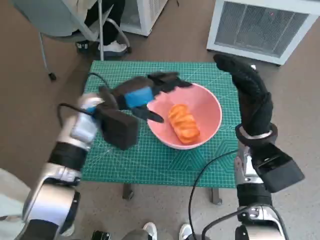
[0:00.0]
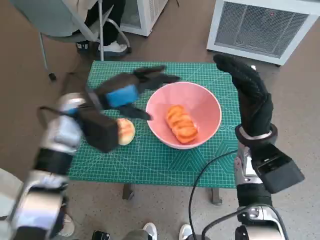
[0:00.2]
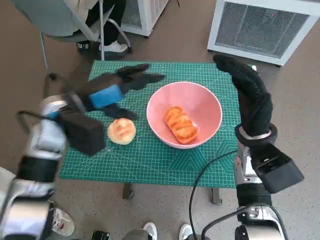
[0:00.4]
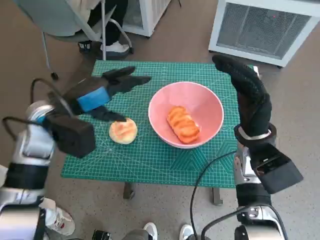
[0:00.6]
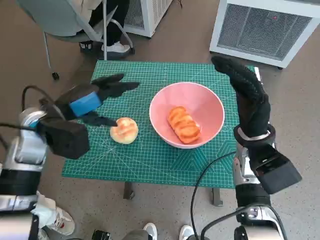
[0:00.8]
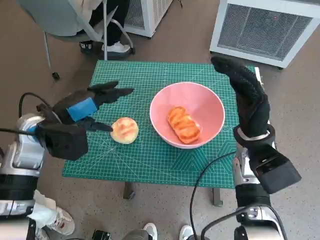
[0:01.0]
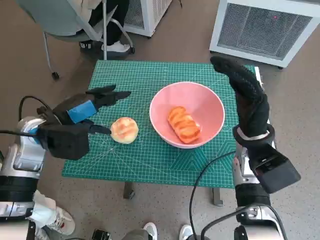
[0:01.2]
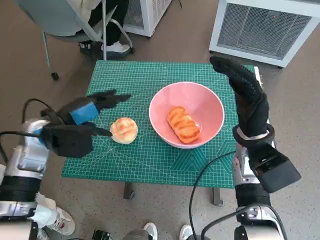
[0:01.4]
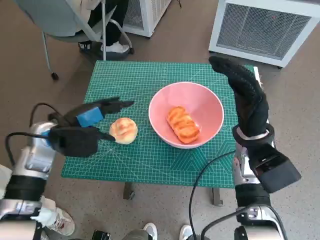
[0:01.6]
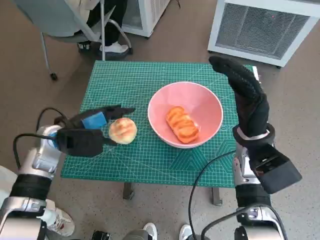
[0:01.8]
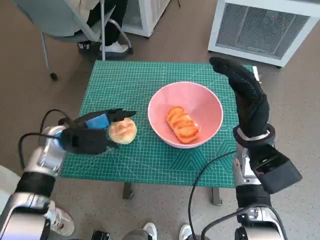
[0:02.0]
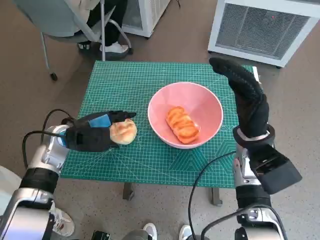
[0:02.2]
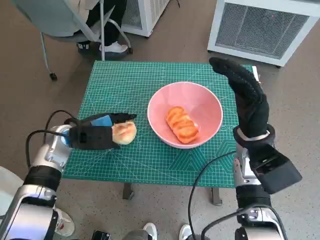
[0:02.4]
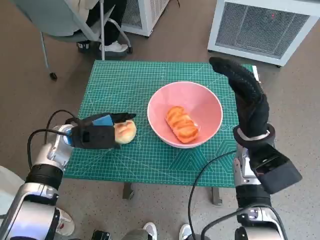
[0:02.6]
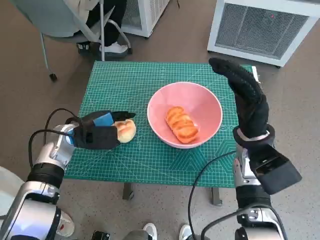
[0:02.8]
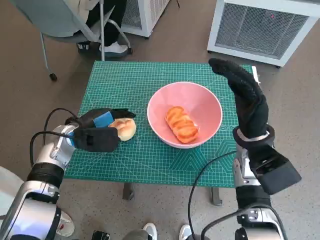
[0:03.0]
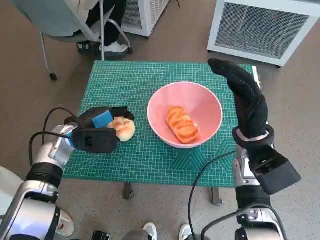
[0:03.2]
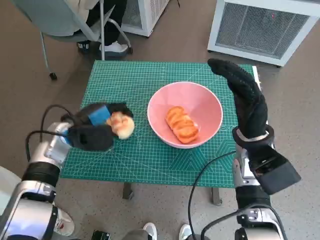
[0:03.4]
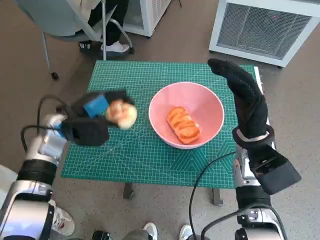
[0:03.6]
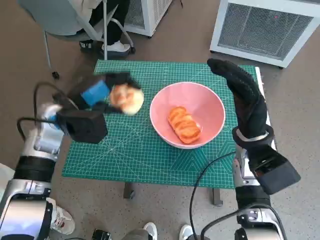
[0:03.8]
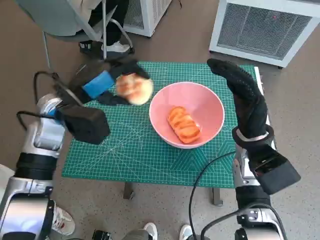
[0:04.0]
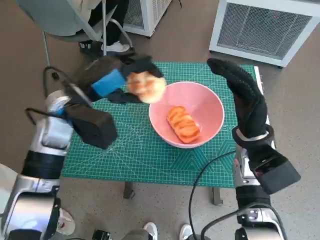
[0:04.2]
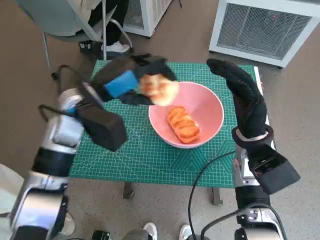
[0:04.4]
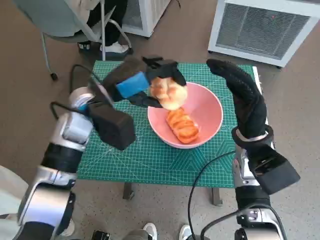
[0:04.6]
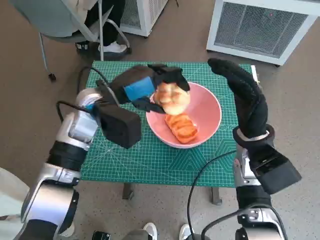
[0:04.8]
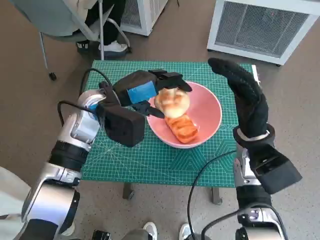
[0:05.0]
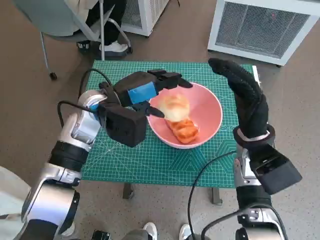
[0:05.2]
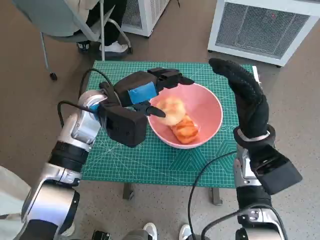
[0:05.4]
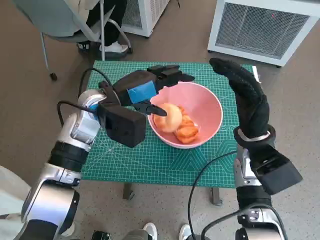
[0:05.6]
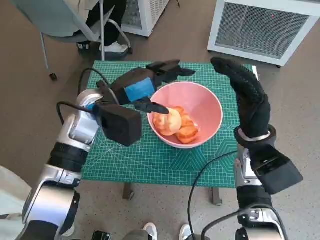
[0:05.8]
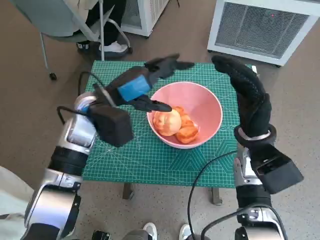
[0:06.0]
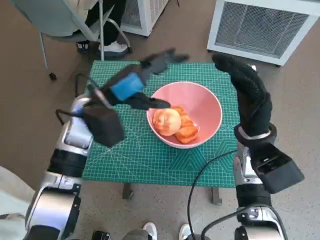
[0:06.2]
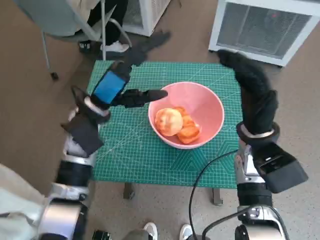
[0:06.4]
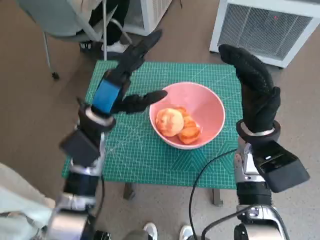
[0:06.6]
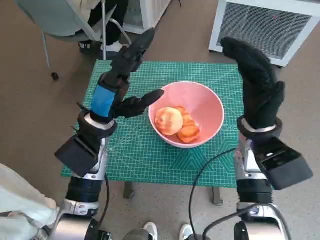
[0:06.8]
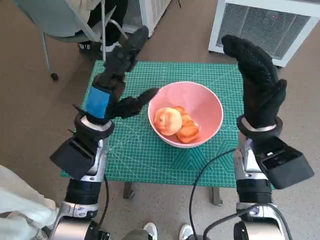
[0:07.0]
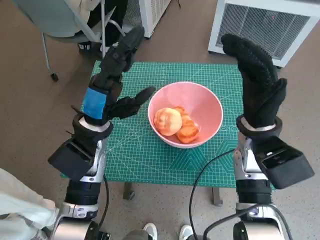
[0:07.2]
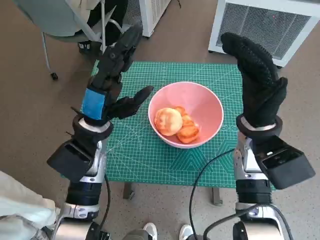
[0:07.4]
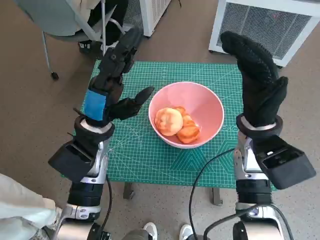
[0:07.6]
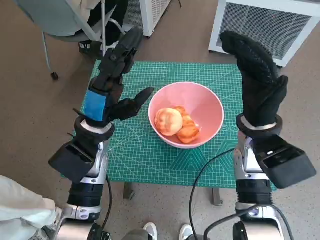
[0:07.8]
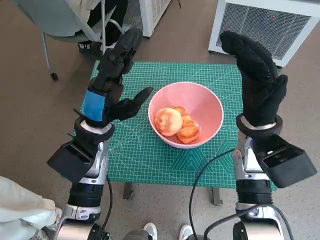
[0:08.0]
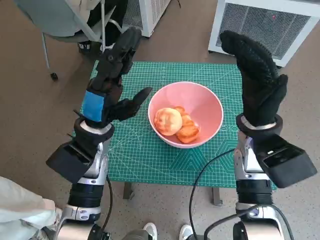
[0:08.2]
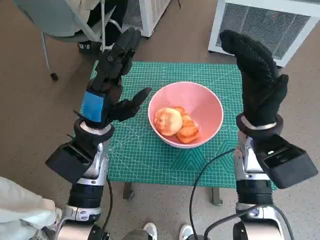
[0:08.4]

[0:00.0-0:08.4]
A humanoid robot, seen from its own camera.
Task of the whole recording: Push the bowl to the center of the table and put the bread into the bowl.
Step, 0:00.2 to 0:03.0: Grasp the round bread with left hand.
Step, 0:03.2 to 0:07.6: Place the round bread in pink bowl with left hand.
0:00.0 to 0:01.4: The left hand goes about 10 cm to the left.
0:01.4 to 0:02.8: The left hand shifts some 5 cm downward.
0:02.8 to 0:04.2: The left hand moves upward, some 10 cm.
0:04.2 to 0:05.6: The left hand ends up roughly 5 cm from where it was.
0:05.6 to 0:07.0: The left hand shifts by some 5 cm.
0:07.0 to 0:08.4: The hands make only small movements.

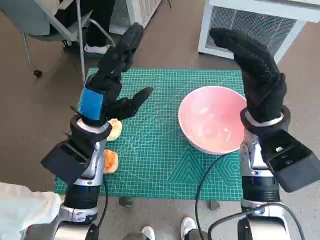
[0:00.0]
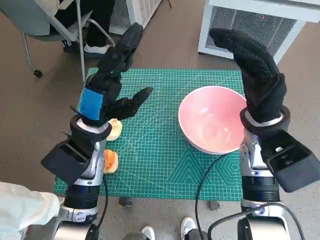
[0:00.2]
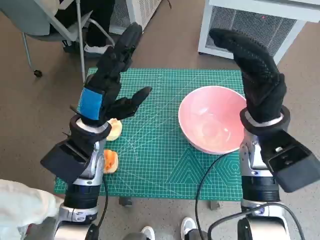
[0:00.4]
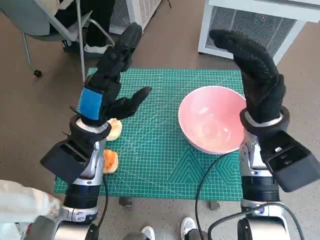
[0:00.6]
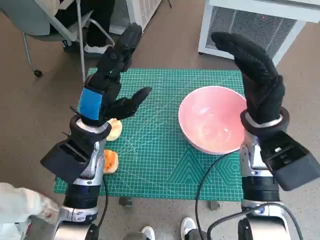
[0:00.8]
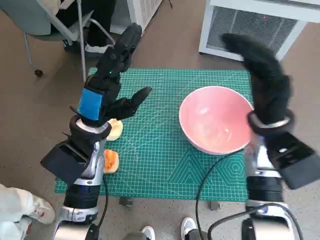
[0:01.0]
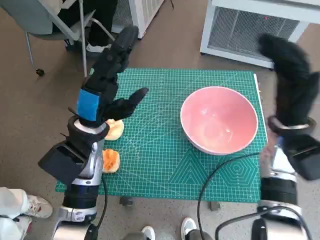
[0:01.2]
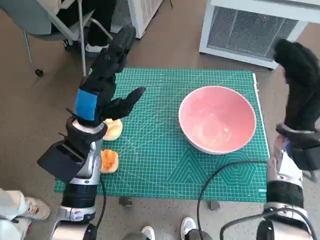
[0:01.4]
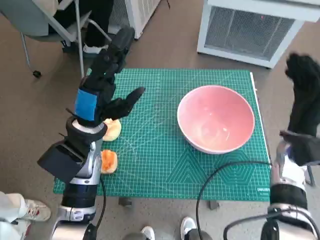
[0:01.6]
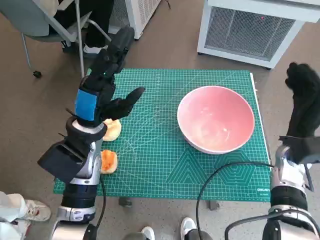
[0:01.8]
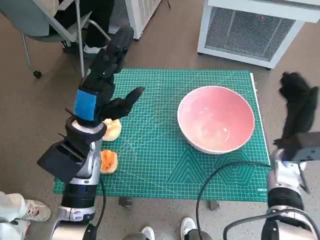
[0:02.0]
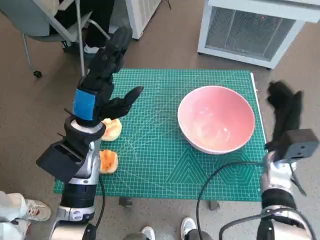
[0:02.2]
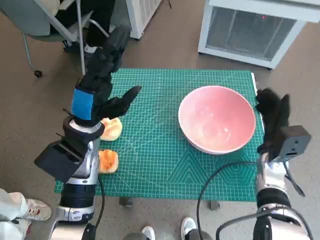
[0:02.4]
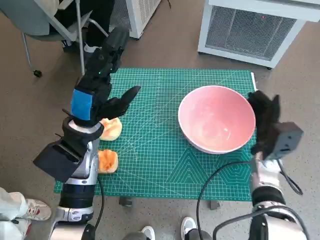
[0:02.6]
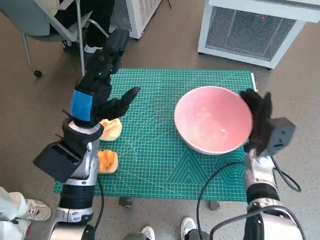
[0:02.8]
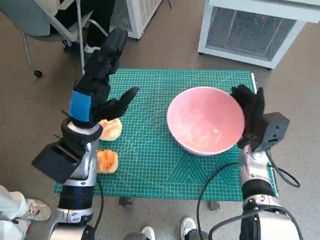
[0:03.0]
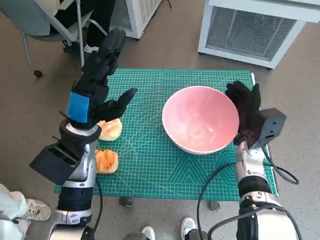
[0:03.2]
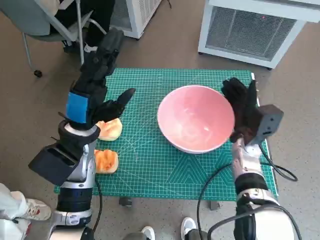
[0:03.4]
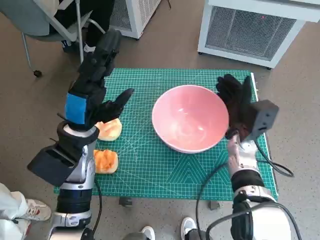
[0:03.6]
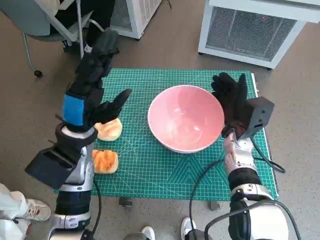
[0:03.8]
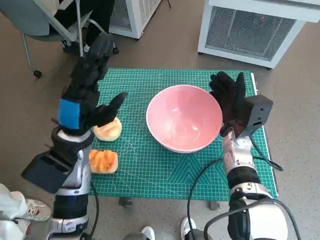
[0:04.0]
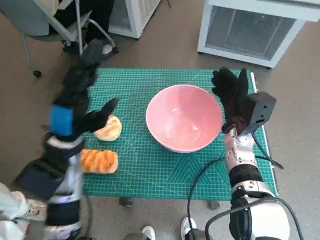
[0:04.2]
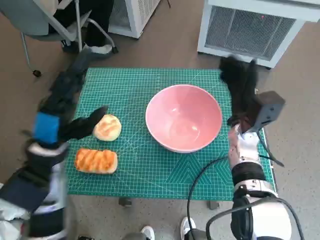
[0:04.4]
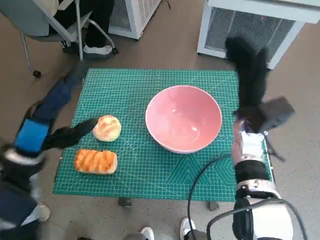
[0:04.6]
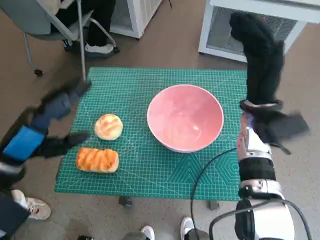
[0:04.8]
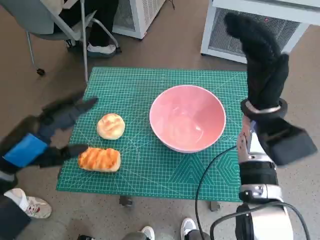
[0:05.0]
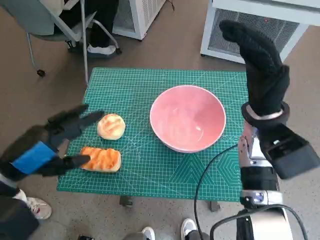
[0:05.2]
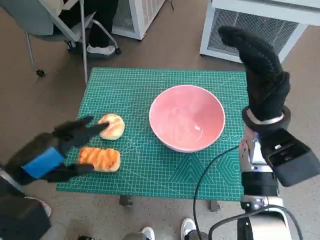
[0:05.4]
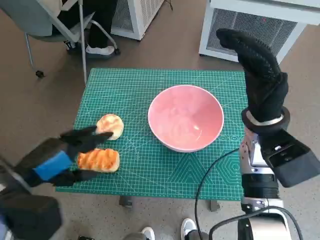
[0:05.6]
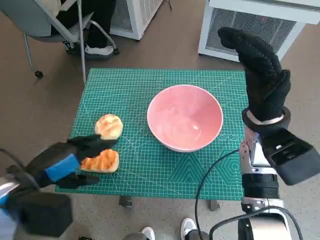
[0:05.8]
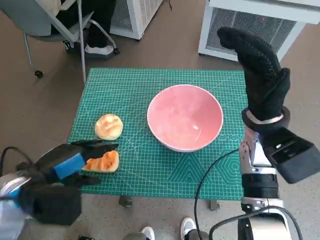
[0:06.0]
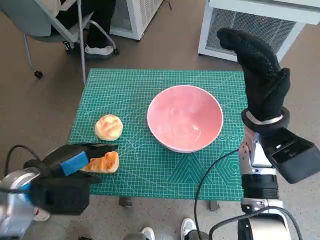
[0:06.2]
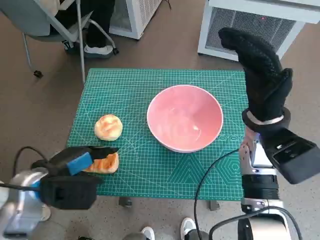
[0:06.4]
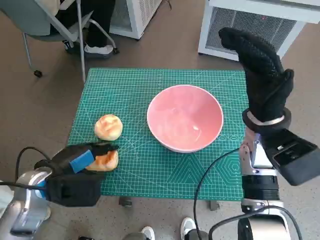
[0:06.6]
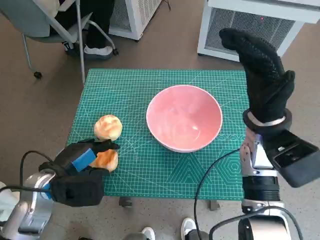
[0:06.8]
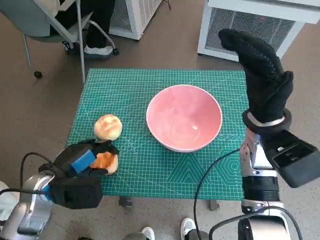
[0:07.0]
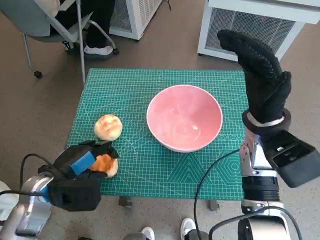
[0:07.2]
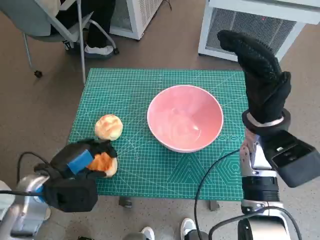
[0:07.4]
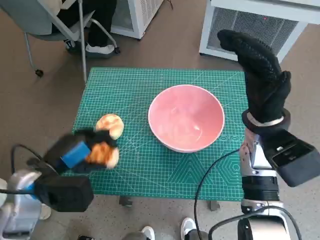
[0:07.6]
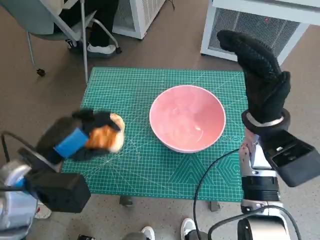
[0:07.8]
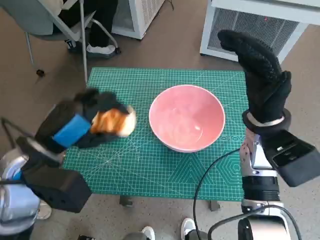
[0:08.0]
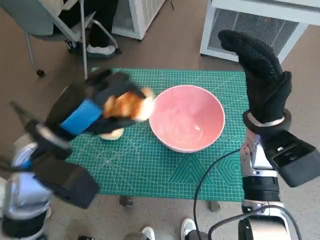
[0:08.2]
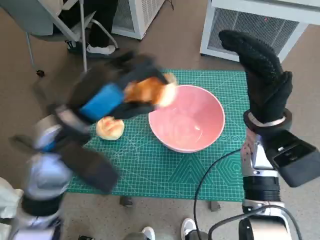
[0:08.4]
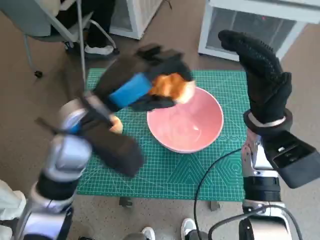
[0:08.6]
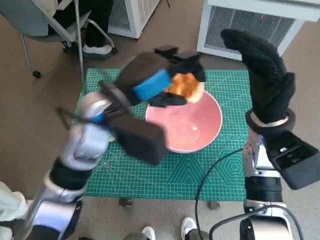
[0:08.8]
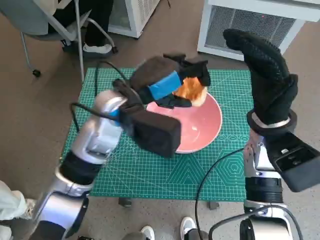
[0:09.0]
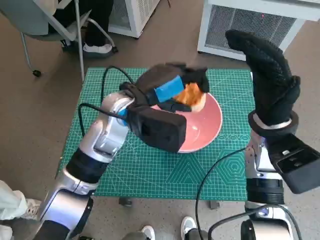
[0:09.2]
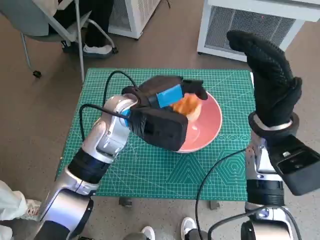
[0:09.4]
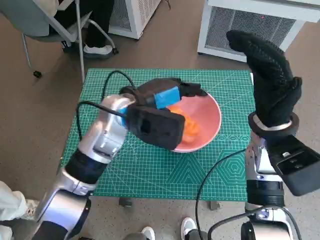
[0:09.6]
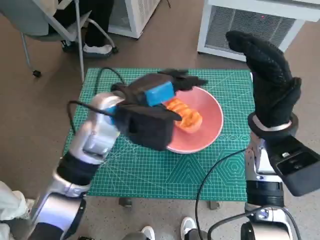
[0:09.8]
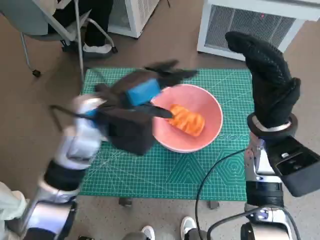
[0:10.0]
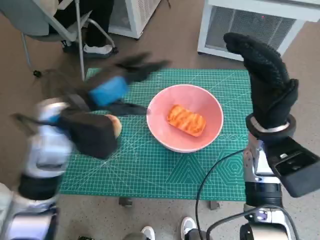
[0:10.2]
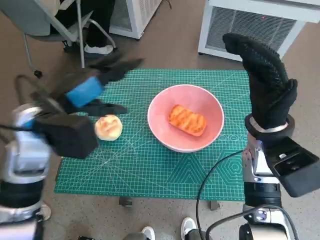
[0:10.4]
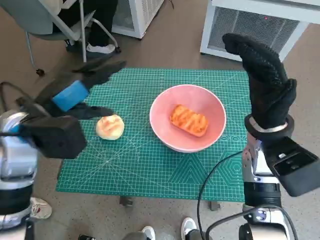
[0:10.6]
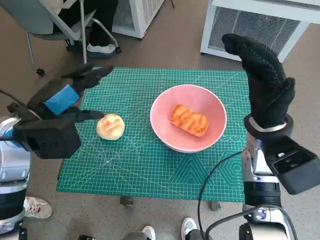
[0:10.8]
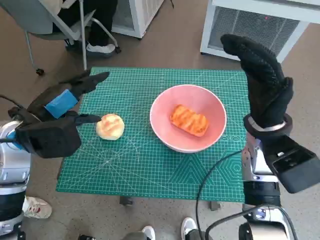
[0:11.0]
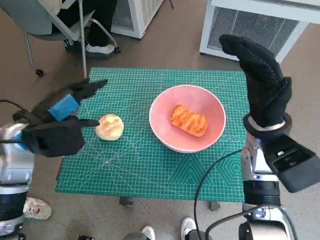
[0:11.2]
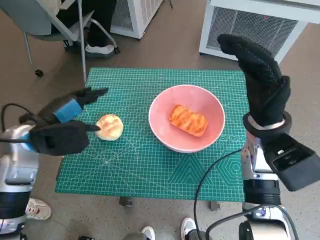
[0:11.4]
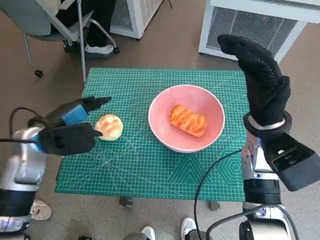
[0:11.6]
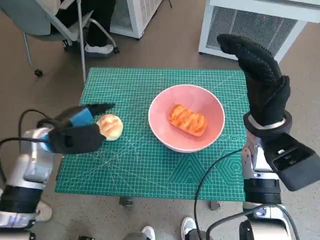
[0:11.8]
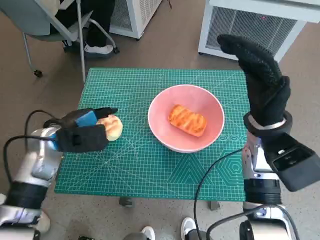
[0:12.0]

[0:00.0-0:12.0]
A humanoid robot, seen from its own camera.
Task of the whole recording: Push the bowl to the center of the table and put the bread into the bowl.
Step, 0:00.0 to 0:04.2: Move the pink bowl to the center of table with right hand.
Step, 0:04.4 to 0:07.2: Grasp the long bread with left hand.
Step, 0:07.4 to 0:09.6: Place the long bread in pink bowl with left hand.
0:01.6 to 0:03.0: The right hand heads downward, covering approximately 5 cm.
0:03.0 to 0:04.4: The right hand shifts by about 5 cm, while the left hand changes place by some 5 cm.
0:04.4 to 0:06.0: The right hand moves upward, about 10 cm, while the left hand moves backward, about 5 cm.
0:07.6 to 0:09.0: The left hand heads to the right, forward and upward, covering about 20 cm.
0:09.0 to 0:10.4: The left hand heads to the left, covering approximately 10 cm.
0:10.4 to 0:12.0: The left hand heads downward and to the left, covering approximately 10 cm.

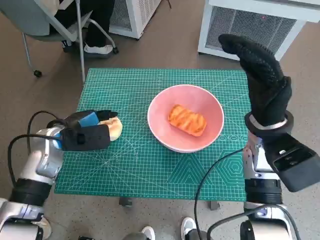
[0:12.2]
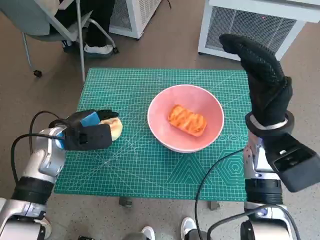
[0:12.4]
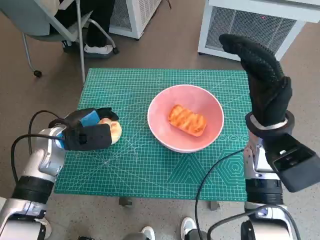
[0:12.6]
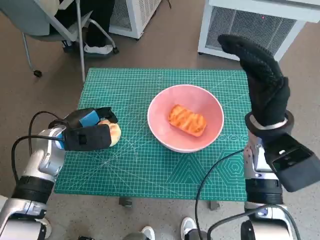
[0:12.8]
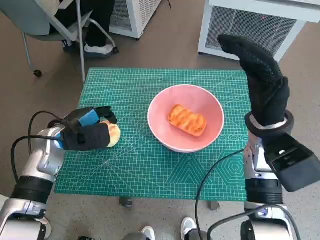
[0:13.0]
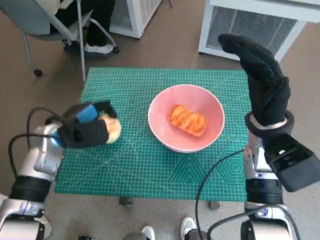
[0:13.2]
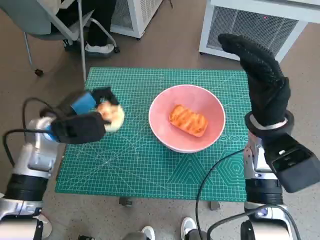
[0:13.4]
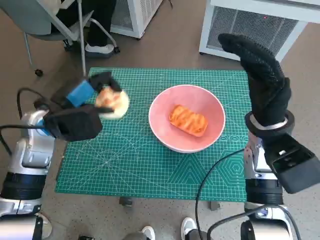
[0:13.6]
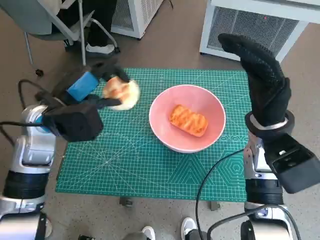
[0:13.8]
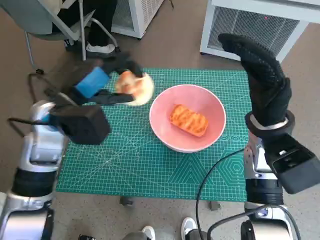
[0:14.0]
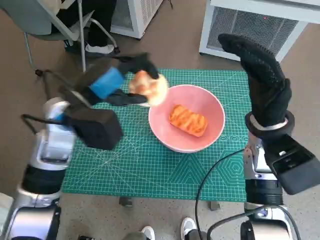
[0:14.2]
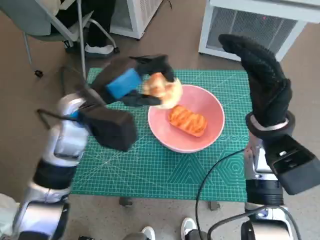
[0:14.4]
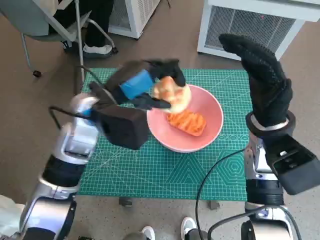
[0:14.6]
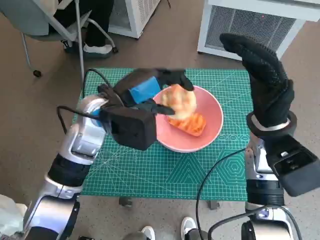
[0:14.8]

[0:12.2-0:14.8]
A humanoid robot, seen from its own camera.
Task of the whole recording: Push the bowl to the center of the table and put the bread into the bowl.
0:12.2 to 0:13.4: The hands make only small movements.
0:13.4 to 0:14.8: The left hand heads to the right and upward, covering approximately 15 cm.
